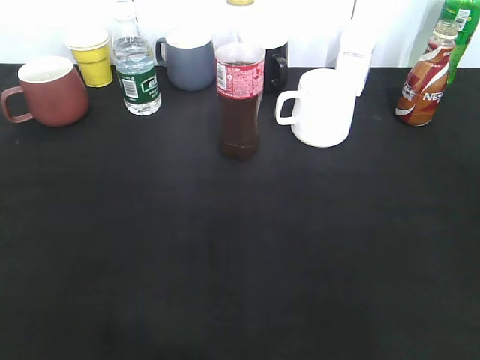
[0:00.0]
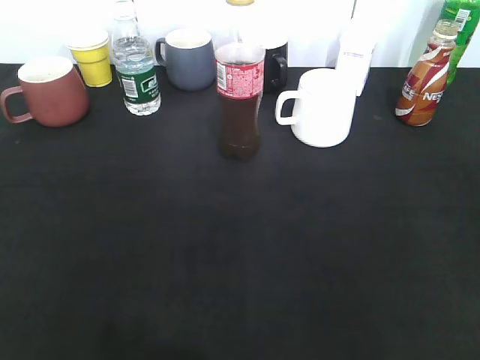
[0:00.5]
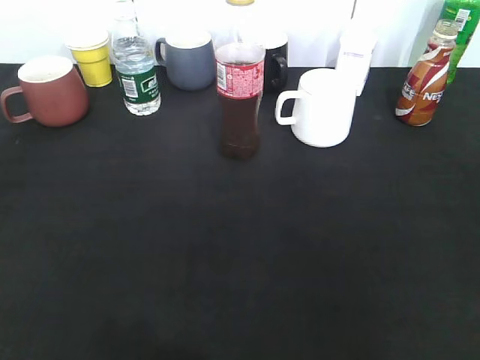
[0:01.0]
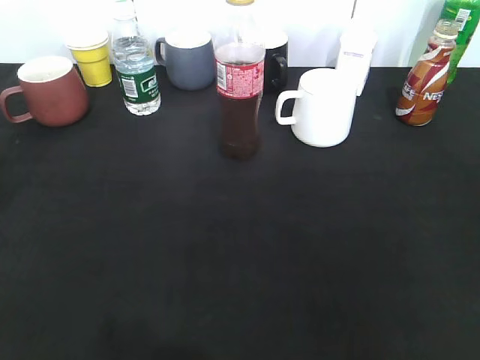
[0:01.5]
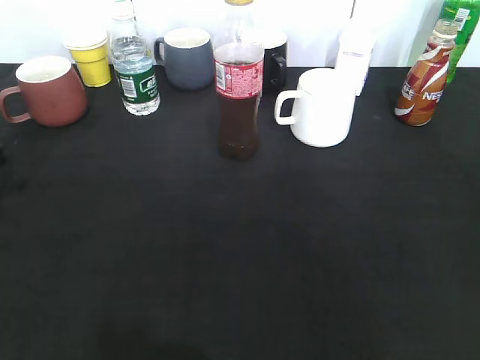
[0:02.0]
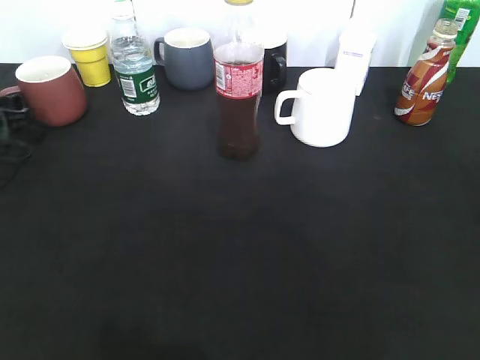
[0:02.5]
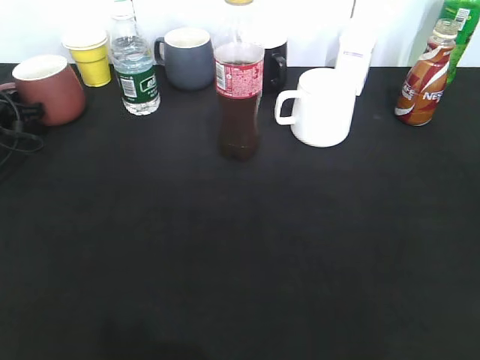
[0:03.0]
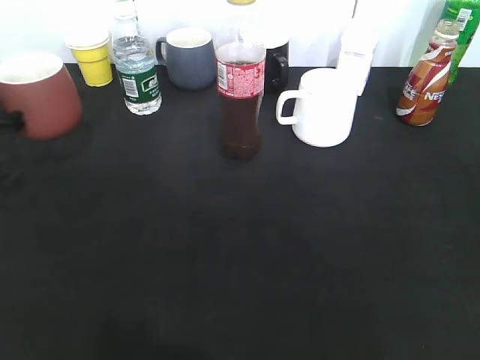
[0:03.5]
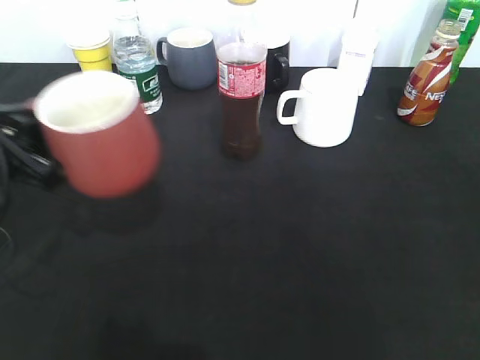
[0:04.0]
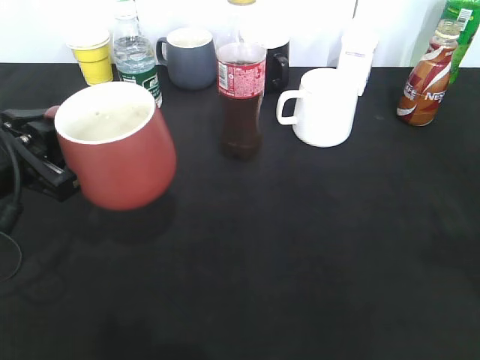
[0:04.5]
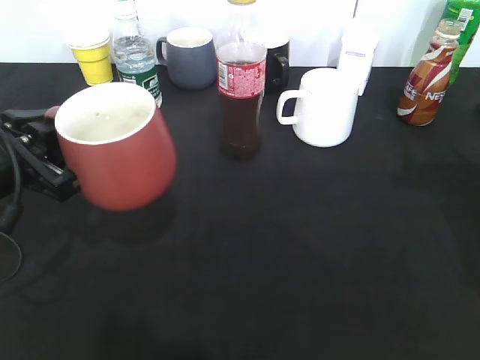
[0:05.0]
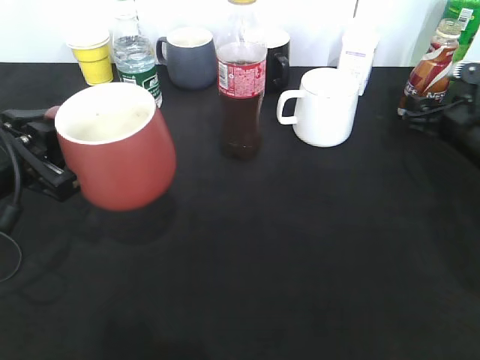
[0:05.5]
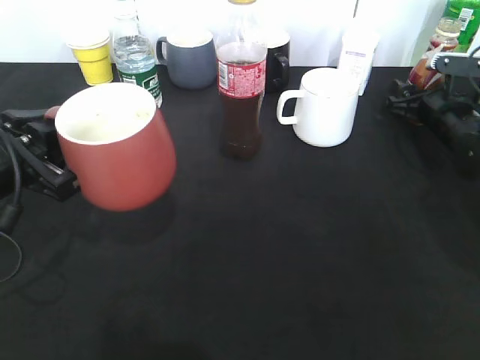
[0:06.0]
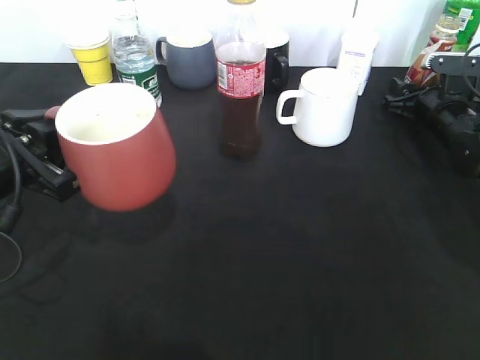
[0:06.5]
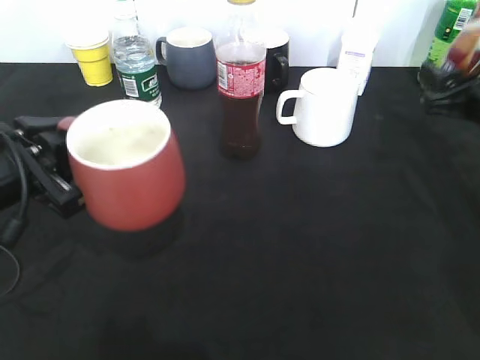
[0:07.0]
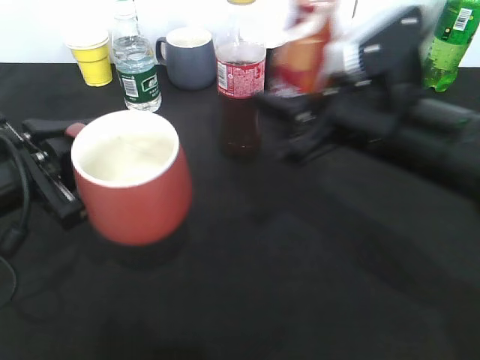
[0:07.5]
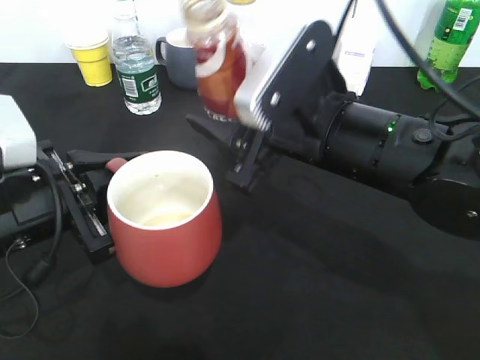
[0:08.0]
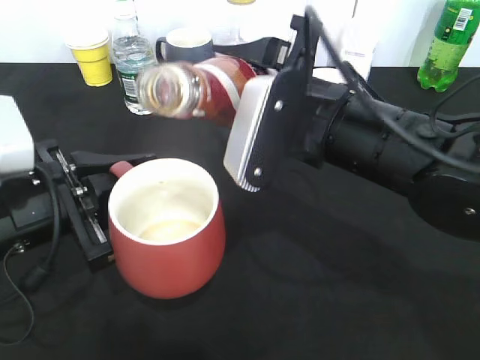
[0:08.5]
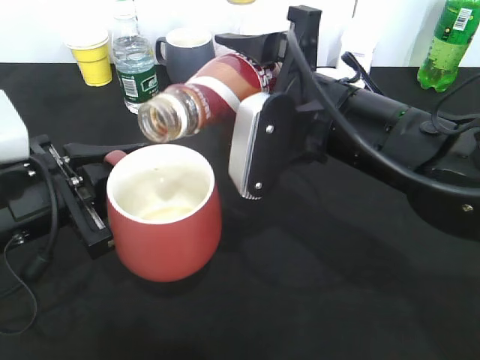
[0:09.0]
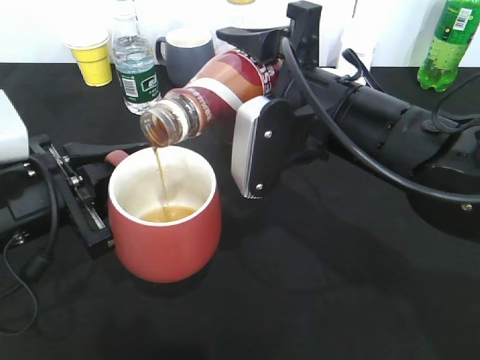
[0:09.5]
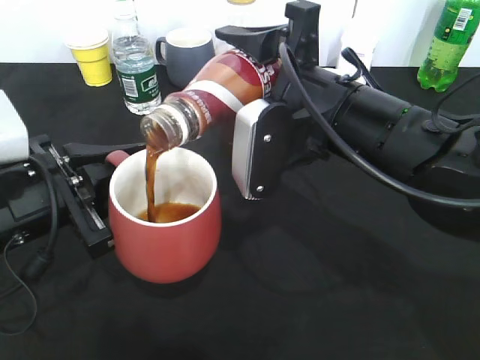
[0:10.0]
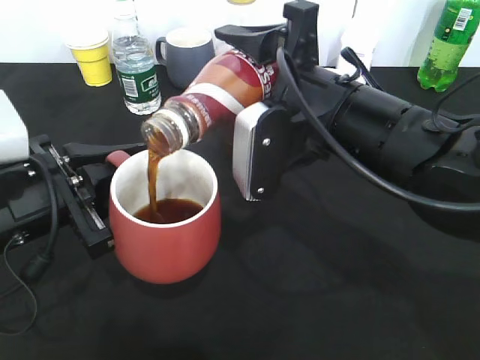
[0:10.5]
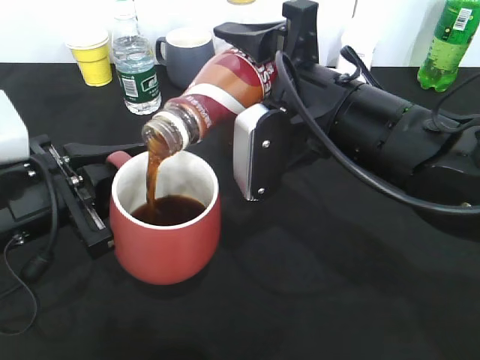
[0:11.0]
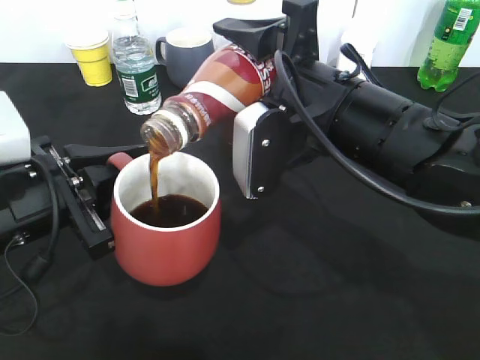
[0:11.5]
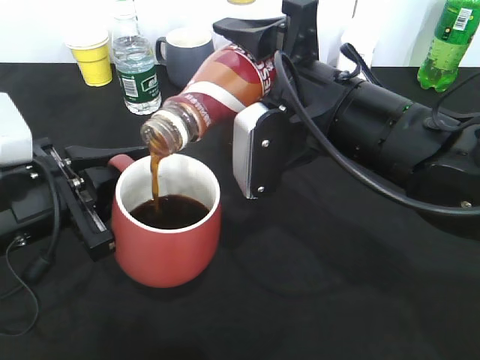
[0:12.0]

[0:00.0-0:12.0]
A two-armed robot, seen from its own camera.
Step, 0:03.5 to 0:04.5: Lift the red cup with left gripper.
Step, 0:05.0 to 0:06.0: Grasp the bottle with coffee with right gripper.
0:00.0 to 0:02.0: The left gripper moves forward and downward, about 30 cm.
0:02.0 to 0:04.0: The left gripper goes about 10 cm to the right and upward, moves about 15 cm forward and comes back, and closes its fingers.
0:04.0 to 0:06.0: The right gripper travels forward and downward by roughly 50 cm.
0:06.0 to 0:08.0: The right gripper heads to the left, backward and upward, covering roughly 30 cm, and closes up.
0:10.0 to 0:12.0: There are only small adjustments of the grippers.

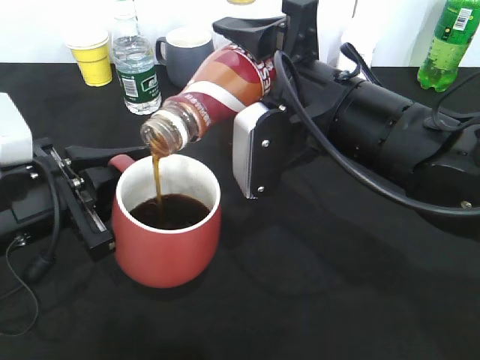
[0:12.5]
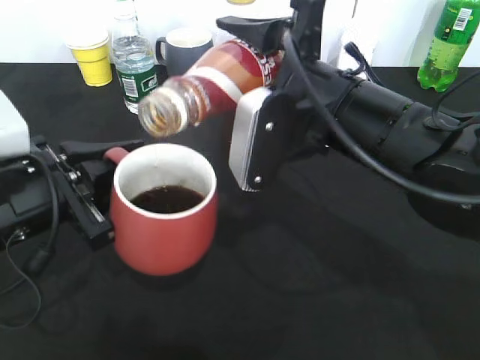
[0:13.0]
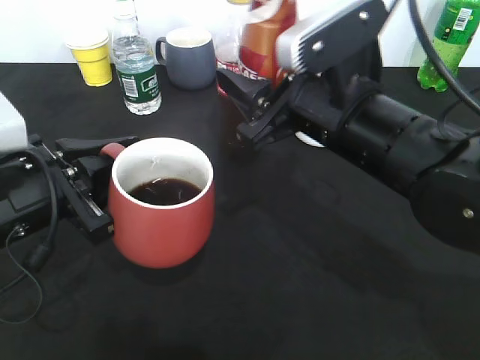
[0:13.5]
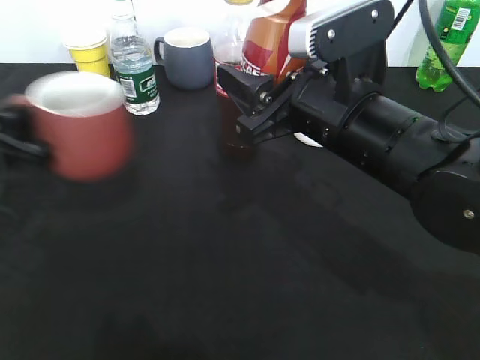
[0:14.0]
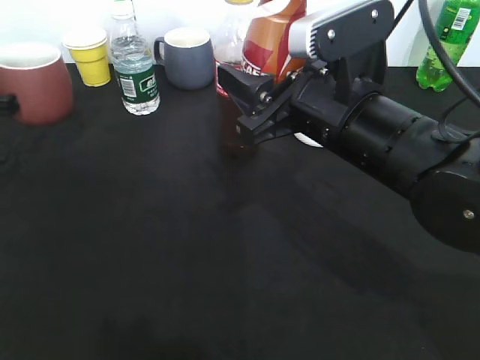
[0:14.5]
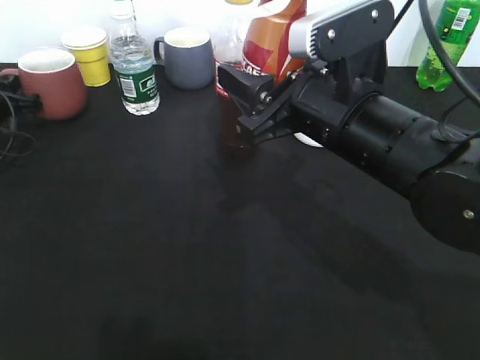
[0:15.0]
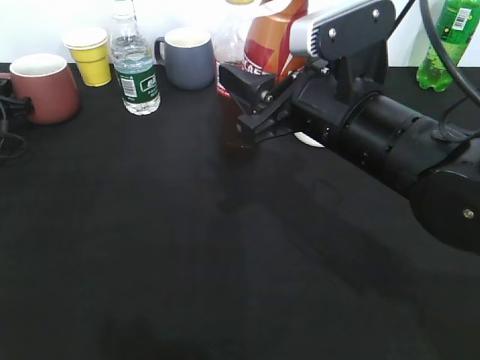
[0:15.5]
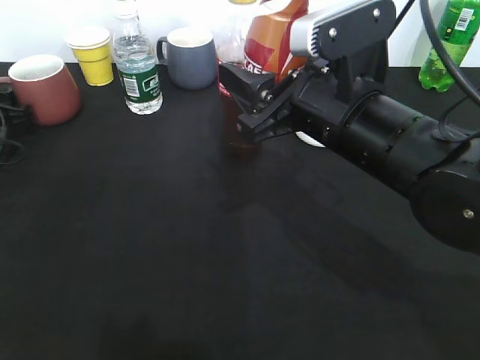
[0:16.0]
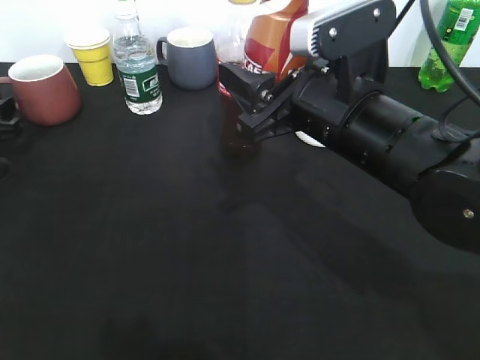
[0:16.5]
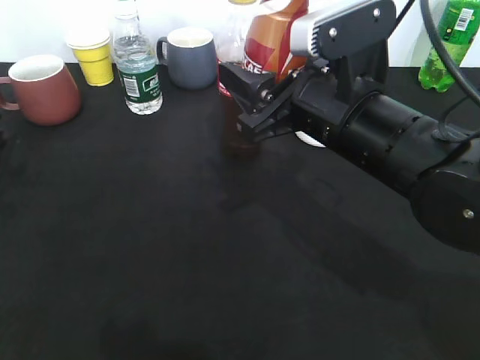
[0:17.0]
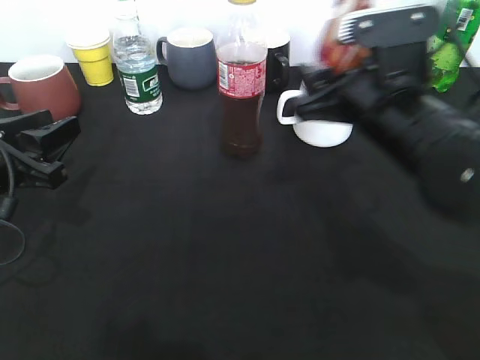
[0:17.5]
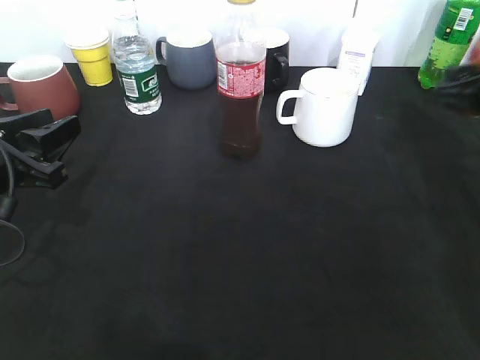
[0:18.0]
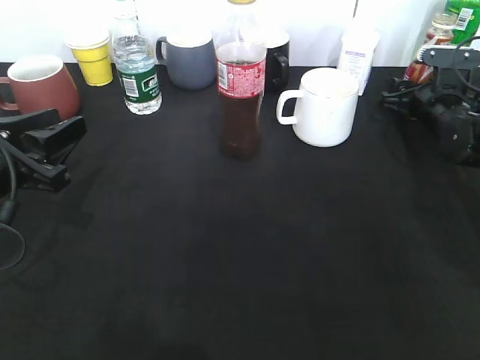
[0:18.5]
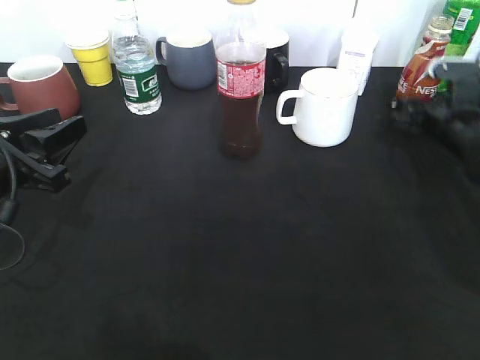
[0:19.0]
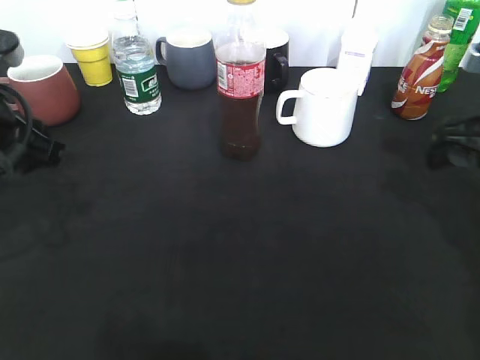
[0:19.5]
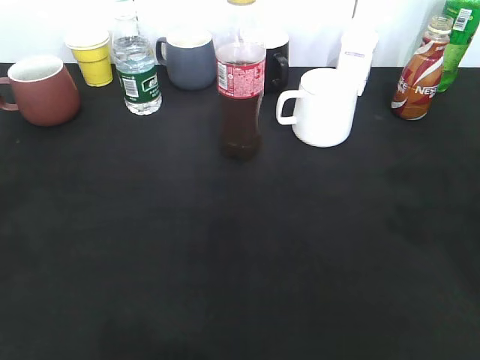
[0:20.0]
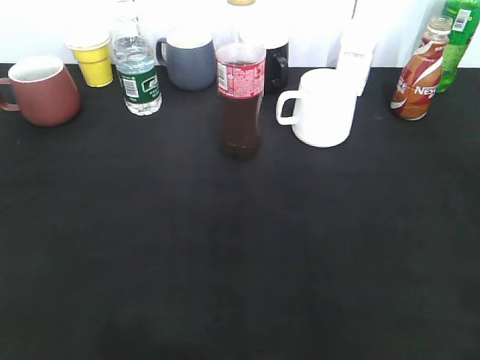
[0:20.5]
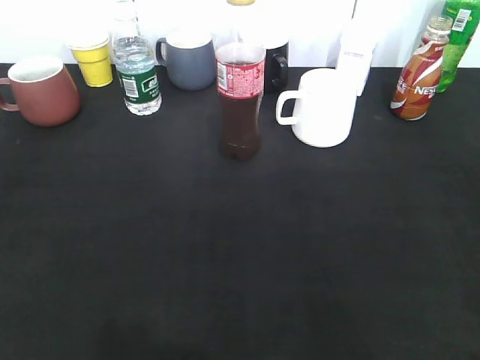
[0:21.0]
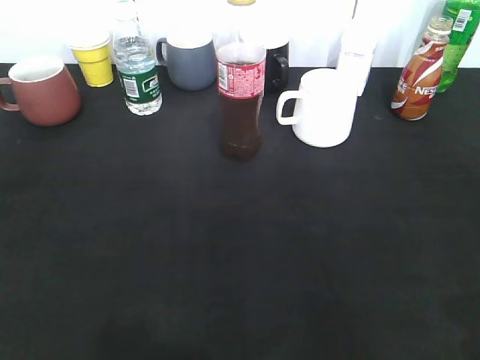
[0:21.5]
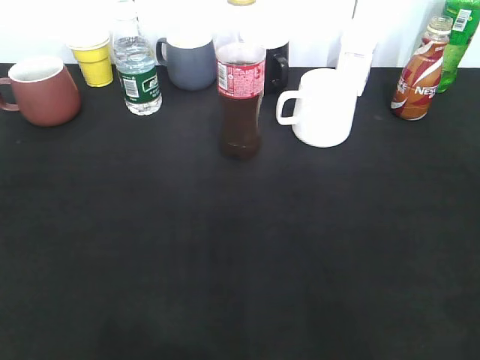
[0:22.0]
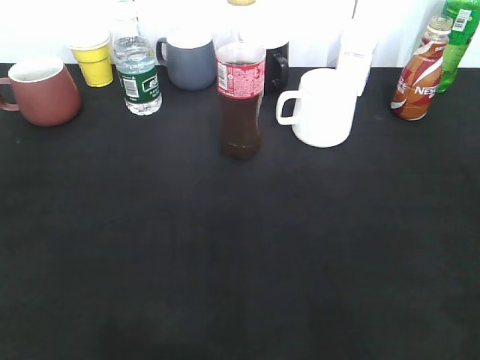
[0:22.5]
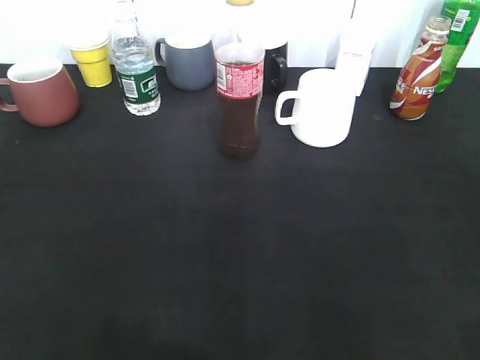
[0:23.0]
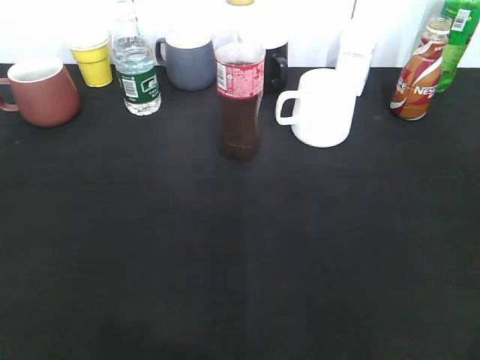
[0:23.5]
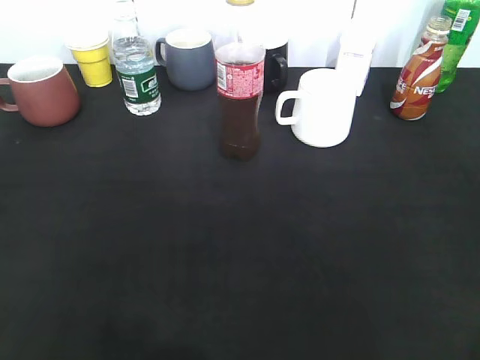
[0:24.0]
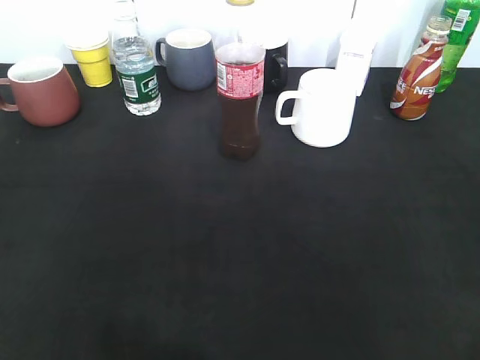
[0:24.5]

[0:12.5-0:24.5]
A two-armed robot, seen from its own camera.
Step, 0:13.5 to 0:15.5: Place the red cup on the table with left gripper.
Step, 0:16.0 to 0:18.5: Place the coffee bottle on the table with right gripper.
0:12.5 to 0:14.5: The left gripper heads forward and to the left, covering approximately 20 cm.
0:14.5 to 0:16.5: The left gripper opens up.
0:16.5 to 0:18.5: The right gripper is displaced forward, to the right and downward by approximately 30 cm; the left gripper heads backward, to the right and upward, covering some 20 cm.
0:18.5 to 0:20.5: The right gripper is displaced backward and upward by about 50 cm, and opens its fingers; the left gripper is displaced backward and upward by roughly 25 cm.
0:22.5 to 0:24.5: The left gripper is displaced backward by about 5 cm.

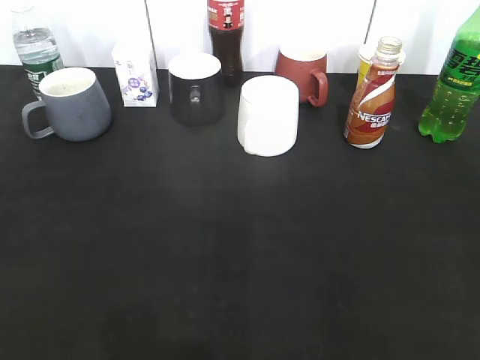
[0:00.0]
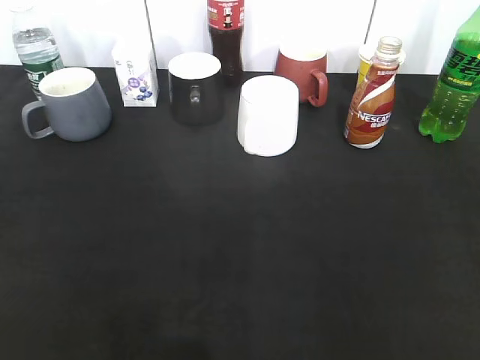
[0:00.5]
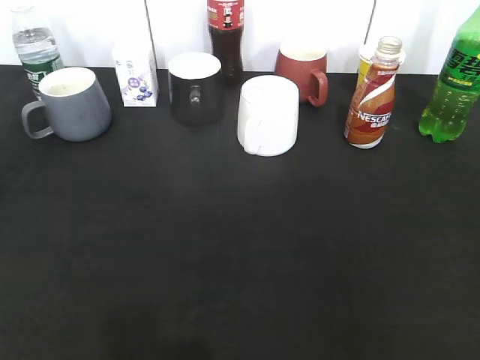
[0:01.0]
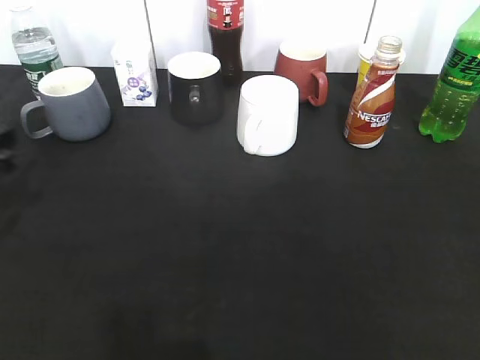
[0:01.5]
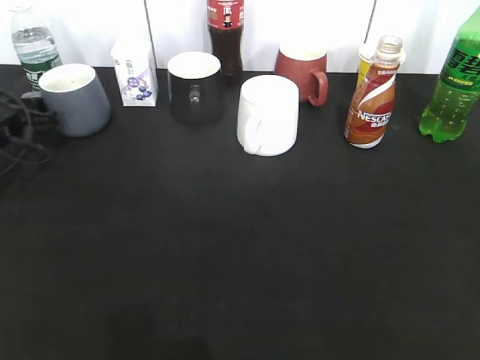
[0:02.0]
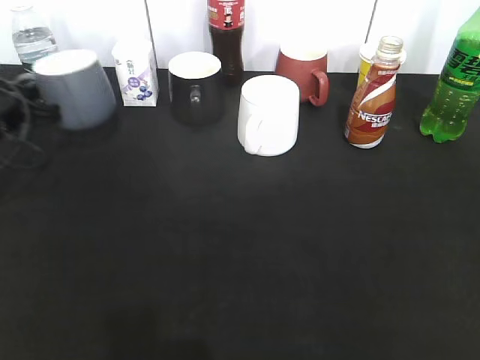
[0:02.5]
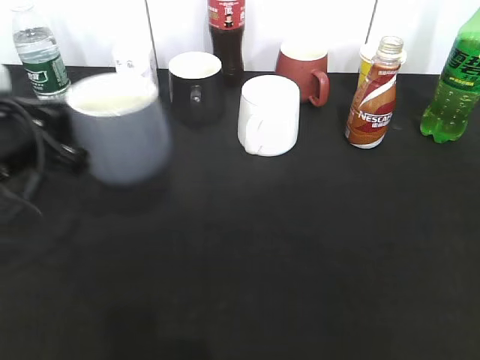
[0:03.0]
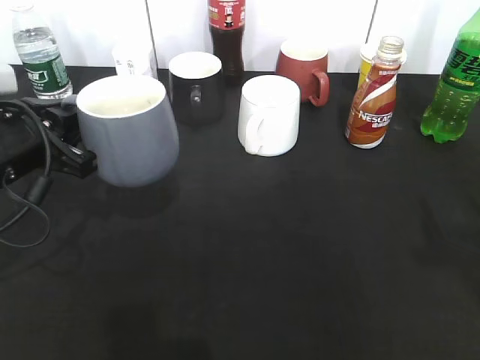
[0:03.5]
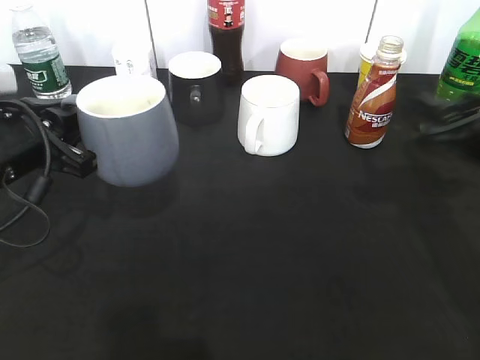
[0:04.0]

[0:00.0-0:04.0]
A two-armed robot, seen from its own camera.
Step, 0:00.0 to 0:02.0: Grasp the grey cup with left gripper.
Step, 0:02.5 to 0:03.5: Lift the grey cup with left gripper.
0:00.0 to 0:02.0: The left gripper goes some 40 cm forward and downward, and closes up.
0:02.0 to 0:04.0: The left gripper shifts roughly 20 cm backward, to the right and upward, and closes. Meanwhile the right gripper moves forward, roughly 25 cm.
